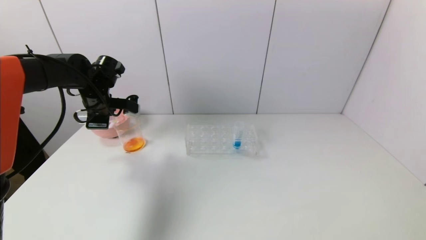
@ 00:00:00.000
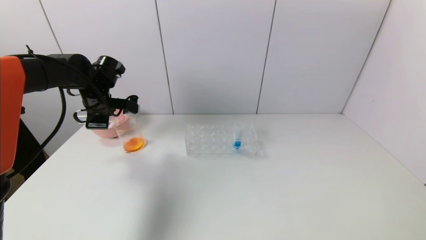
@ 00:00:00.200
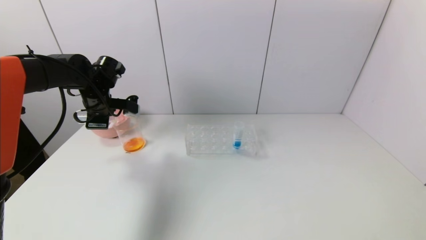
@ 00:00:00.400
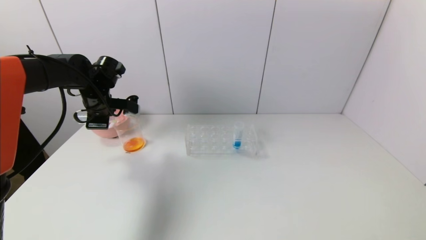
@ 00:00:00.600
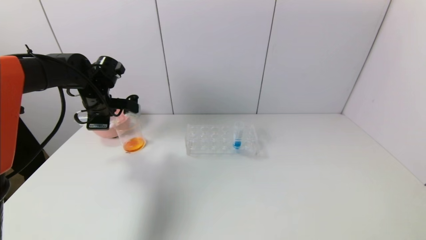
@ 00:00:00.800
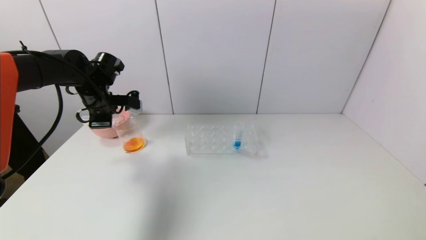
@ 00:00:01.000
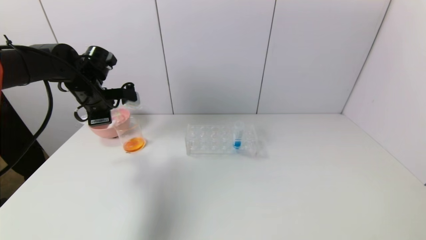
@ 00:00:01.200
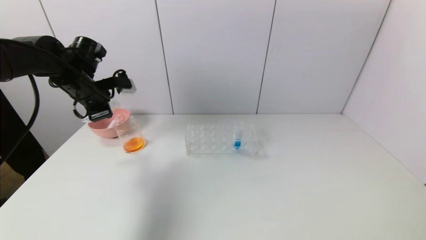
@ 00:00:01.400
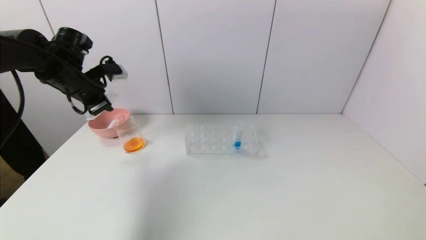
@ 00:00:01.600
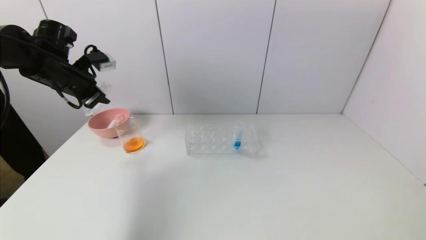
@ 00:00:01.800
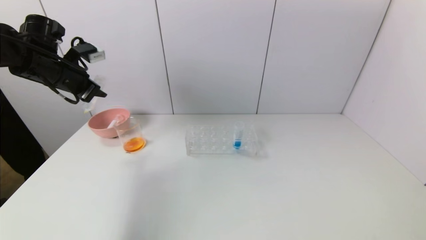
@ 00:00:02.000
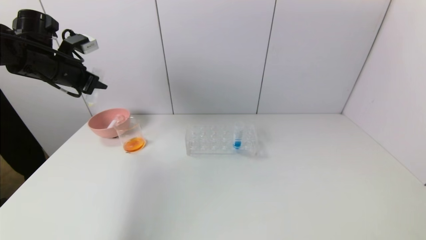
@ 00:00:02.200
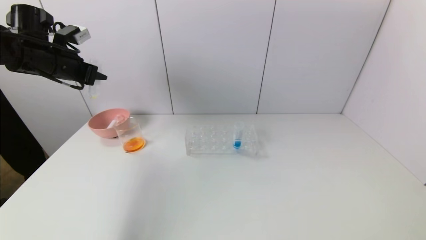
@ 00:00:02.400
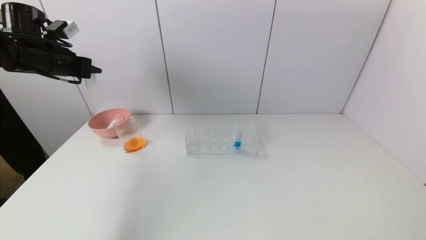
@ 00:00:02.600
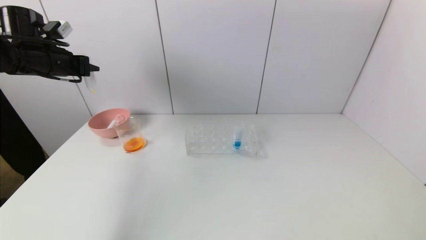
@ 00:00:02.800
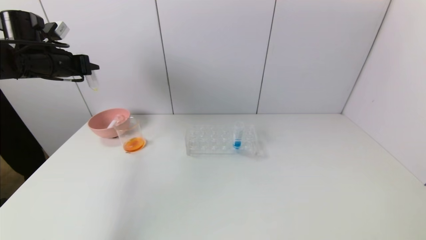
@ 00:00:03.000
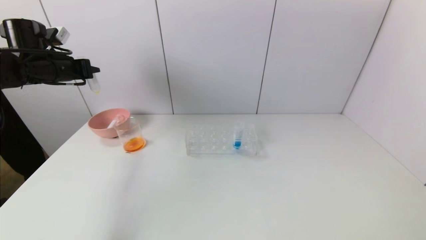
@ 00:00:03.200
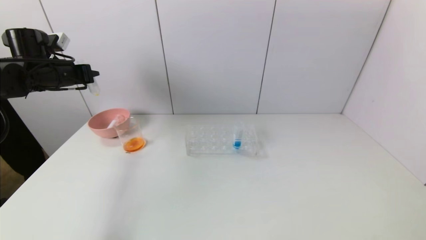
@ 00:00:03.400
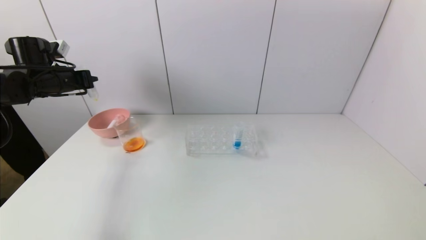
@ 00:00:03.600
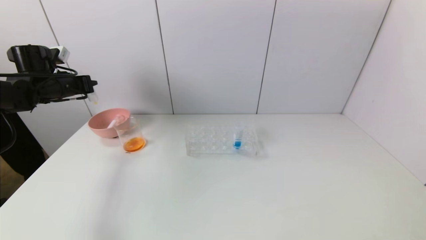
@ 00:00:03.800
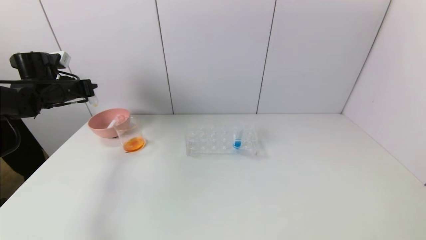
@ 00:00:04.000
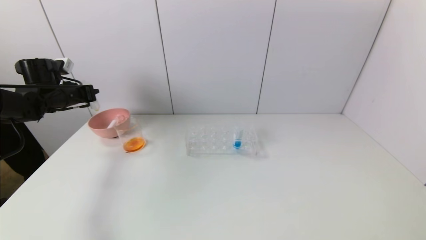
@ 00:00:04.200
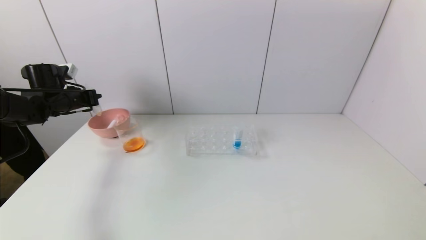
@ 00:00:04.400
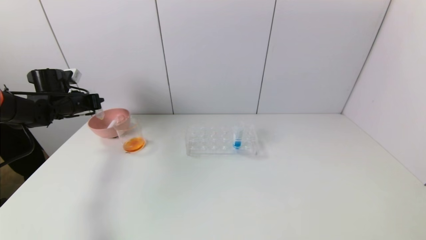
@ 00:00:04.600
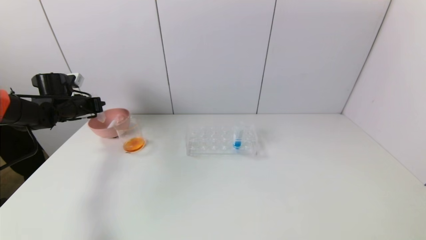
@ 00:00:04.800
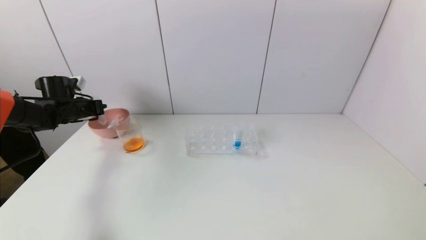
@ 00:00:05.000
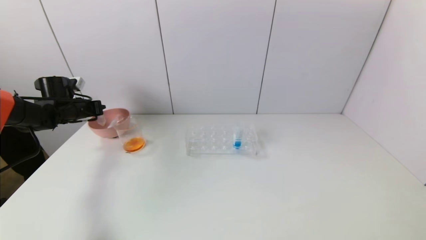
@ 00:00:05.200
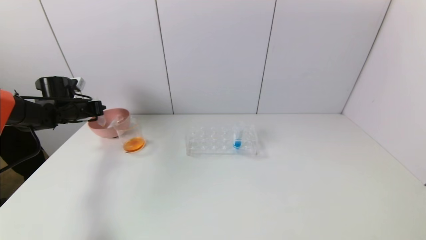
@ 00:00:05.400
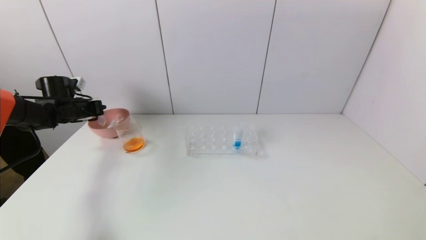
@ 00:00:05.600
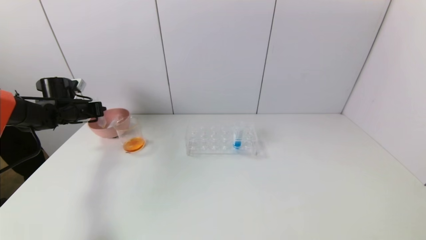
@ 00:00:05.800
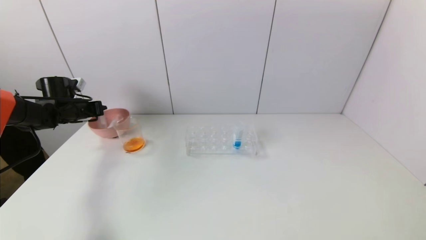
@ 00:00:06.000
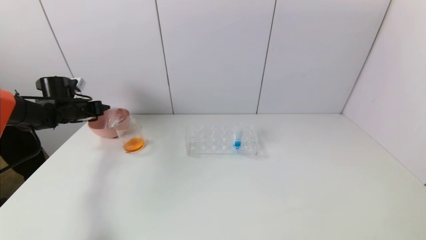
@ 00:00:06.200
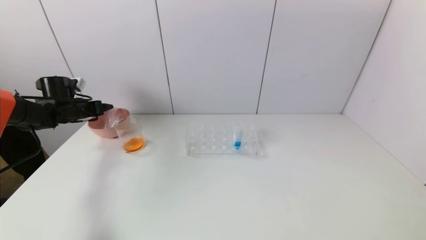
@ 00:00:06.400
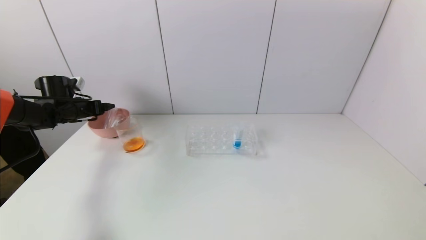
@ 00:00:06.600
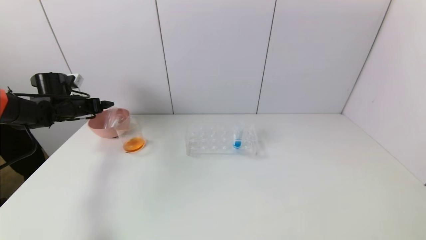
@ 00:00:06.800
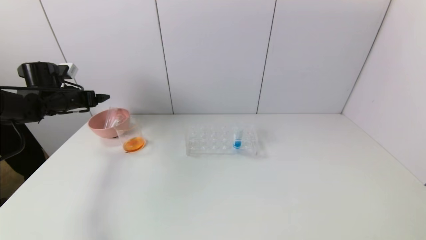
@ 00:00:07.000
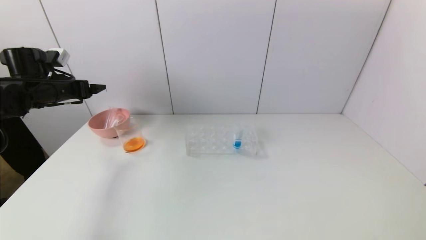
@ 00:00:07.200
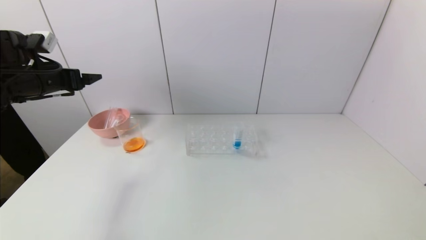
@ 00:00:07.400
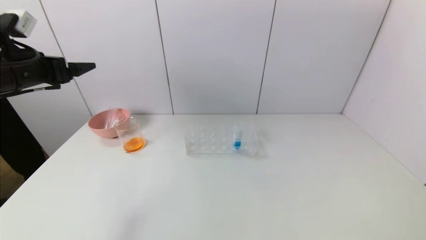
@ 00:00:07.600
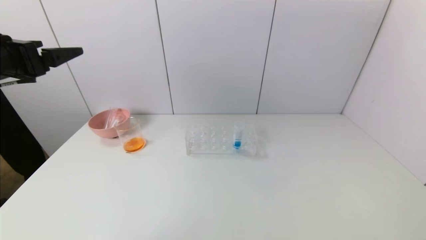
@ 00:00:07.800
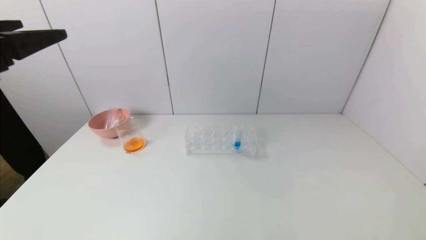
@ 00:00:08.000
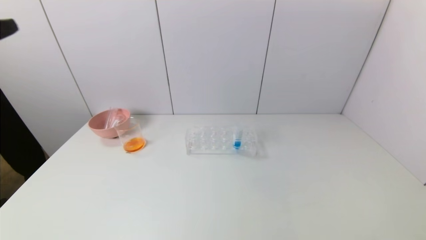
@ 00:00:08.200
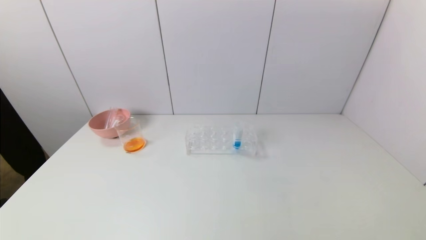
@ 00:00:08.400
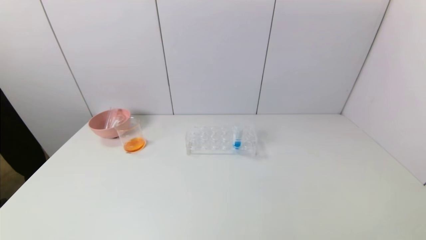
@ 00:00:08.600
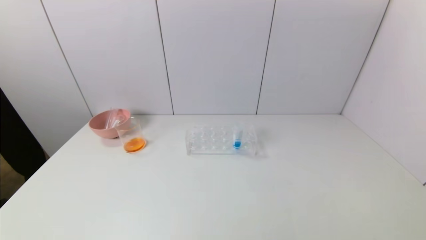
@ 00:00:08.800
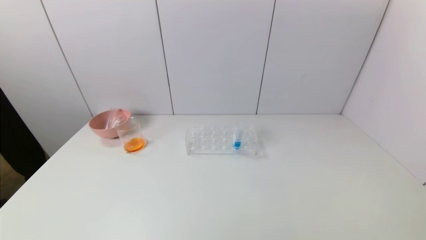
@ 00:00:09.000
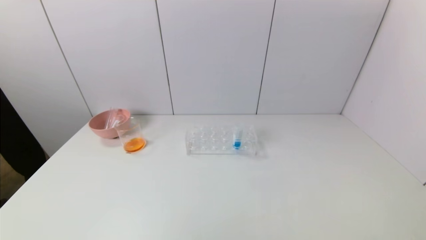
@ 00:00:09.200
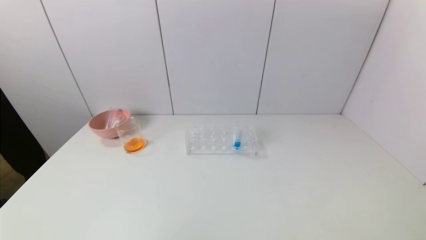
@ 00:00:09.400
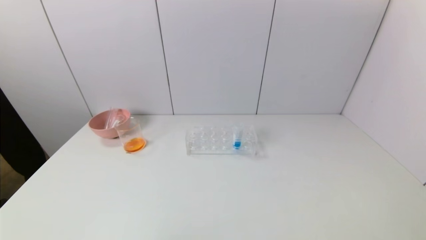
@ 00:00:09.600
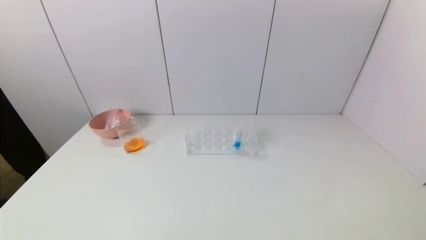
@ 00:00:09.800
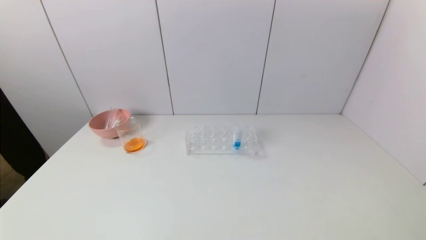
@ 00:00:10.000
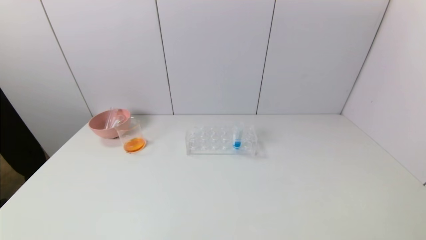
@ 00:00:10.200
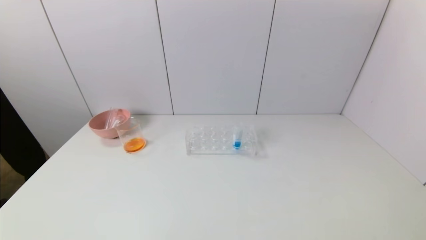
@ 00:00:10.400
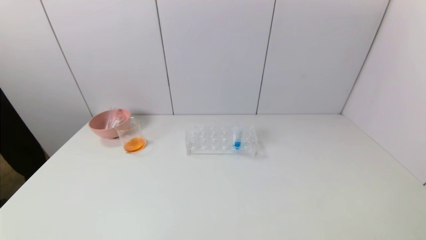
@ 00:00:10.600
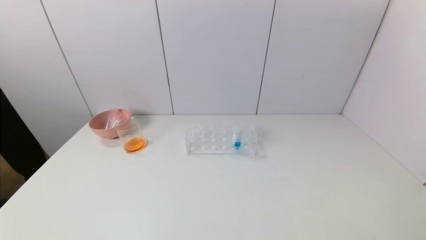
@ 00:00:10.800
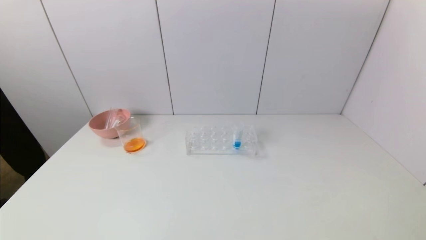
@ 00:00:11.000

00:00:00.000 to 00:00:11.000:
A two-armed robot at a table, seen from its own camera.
Task of the whole recording: pick up the test tube with yellow pigment and the test tube with red pigment by grippers and pour them into the beaker.
Step, 00:00:00.000 to 00:00:06.200: Place the test tube into the pink bowl with the left gripper.
00:00:00.000 to 00:00:01.600: The left gripper is displaced upward by about 5 cm.
00:00:01.600 to 00:00:03.200: The left gripper travels to the left by approximately 5 cm.
00:00:03.200 to 00:00:04.800: The left gripper goes some 10 cm downward.
00:00:04.800 to 00:00:06.200: The left gripper opens up.
00:00:06.200 to 00:00:07.800: The left gripper shifts roughly 30 cm backward and upward, and opens its fingers.
00:00:07.800 to 00:00:09.400: The left gripper goes roughly 30 cm backward and downward.
